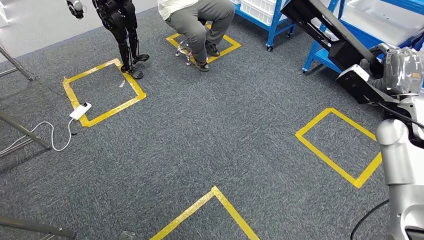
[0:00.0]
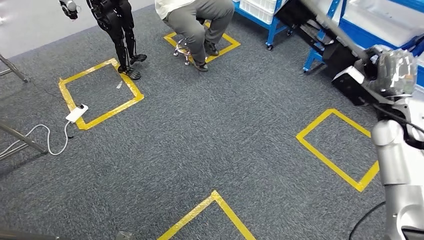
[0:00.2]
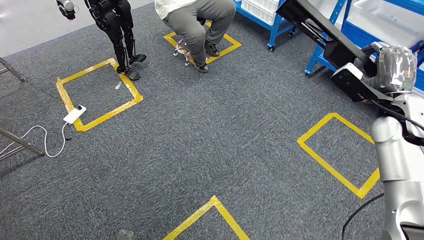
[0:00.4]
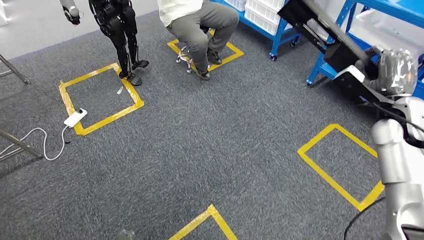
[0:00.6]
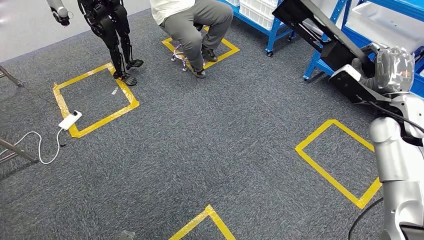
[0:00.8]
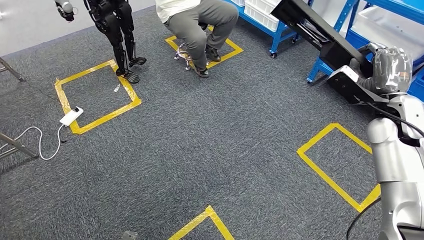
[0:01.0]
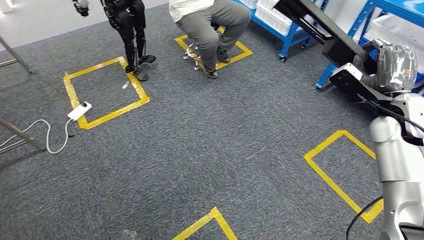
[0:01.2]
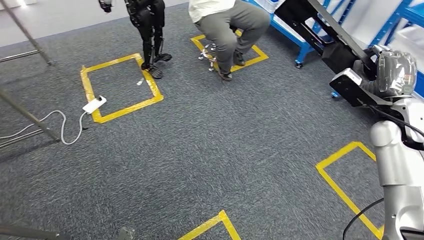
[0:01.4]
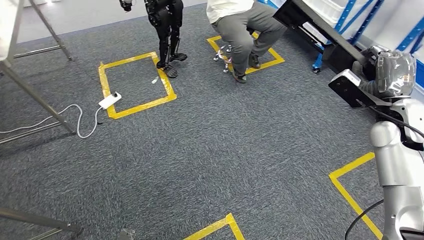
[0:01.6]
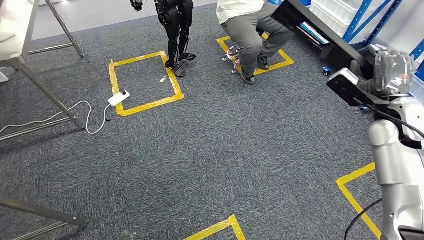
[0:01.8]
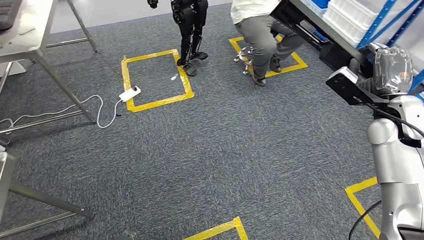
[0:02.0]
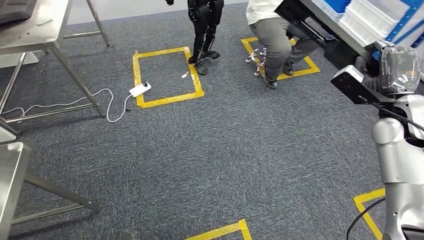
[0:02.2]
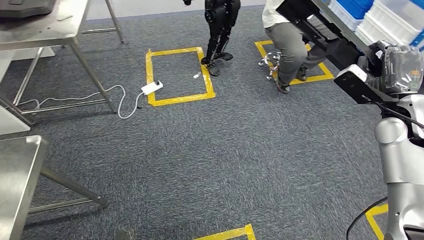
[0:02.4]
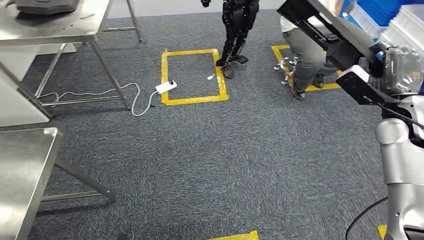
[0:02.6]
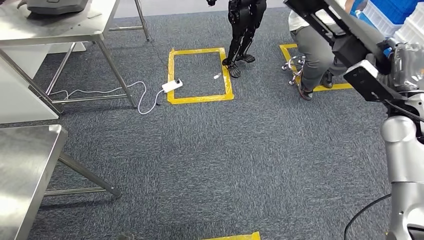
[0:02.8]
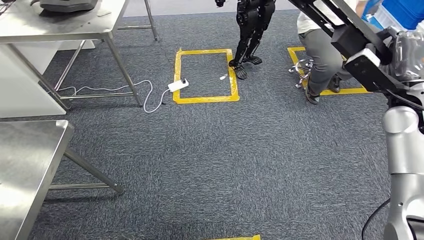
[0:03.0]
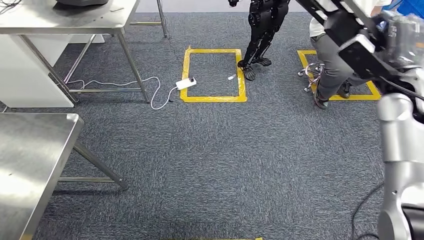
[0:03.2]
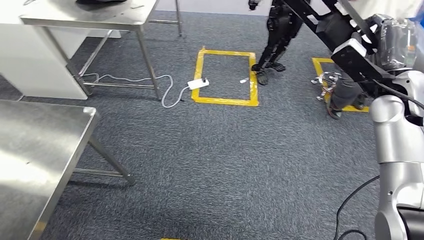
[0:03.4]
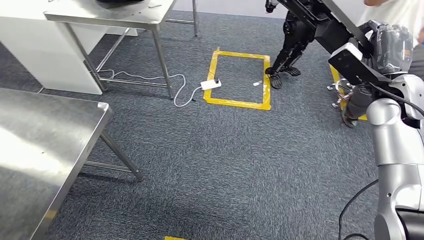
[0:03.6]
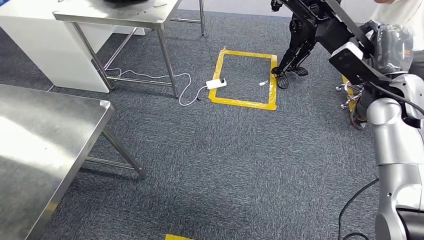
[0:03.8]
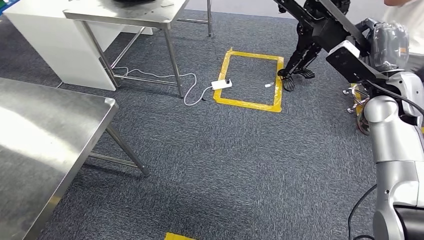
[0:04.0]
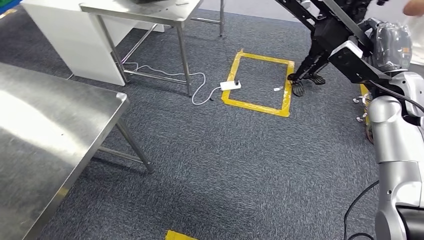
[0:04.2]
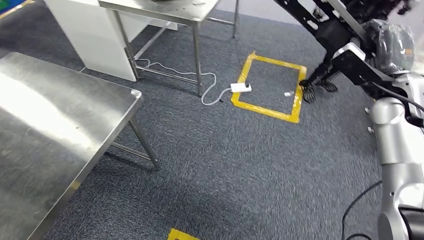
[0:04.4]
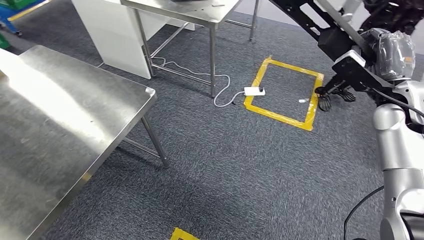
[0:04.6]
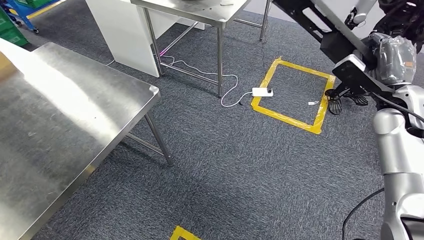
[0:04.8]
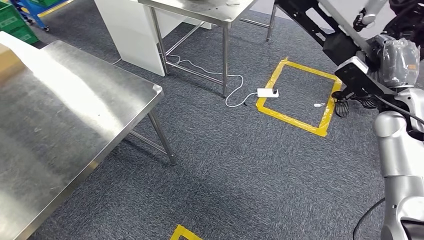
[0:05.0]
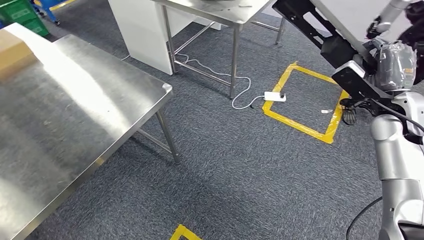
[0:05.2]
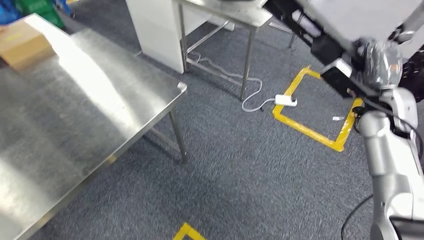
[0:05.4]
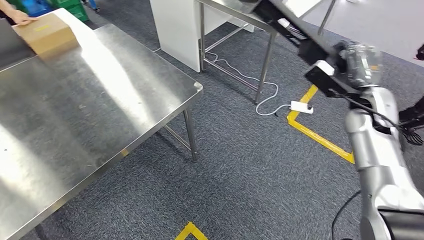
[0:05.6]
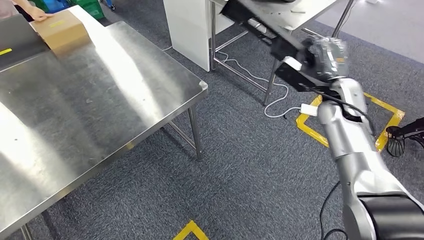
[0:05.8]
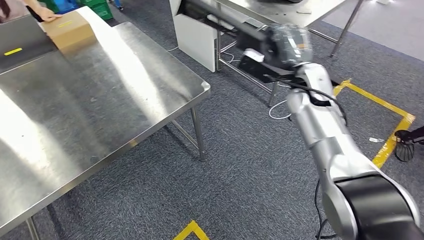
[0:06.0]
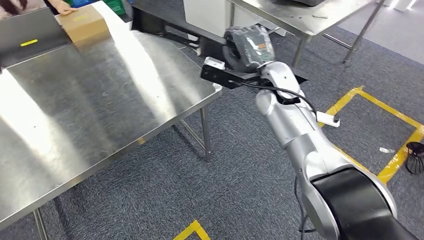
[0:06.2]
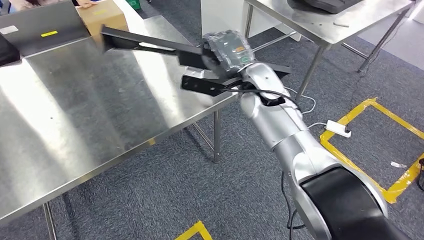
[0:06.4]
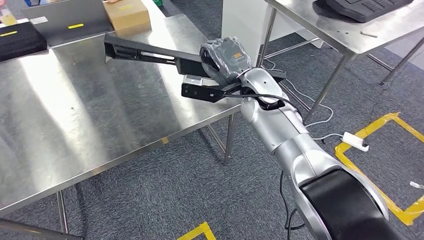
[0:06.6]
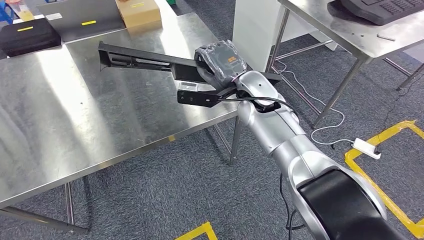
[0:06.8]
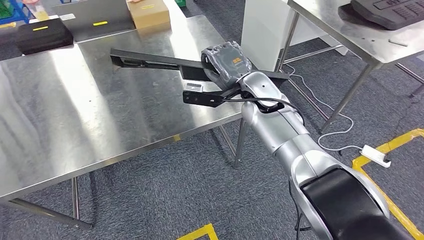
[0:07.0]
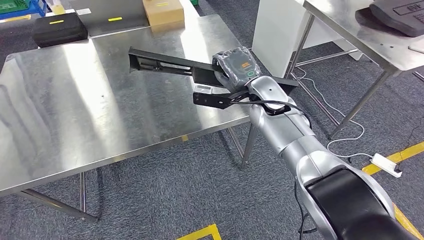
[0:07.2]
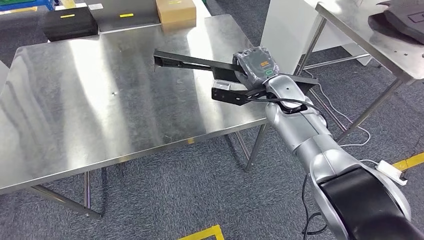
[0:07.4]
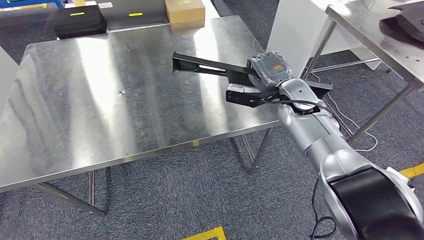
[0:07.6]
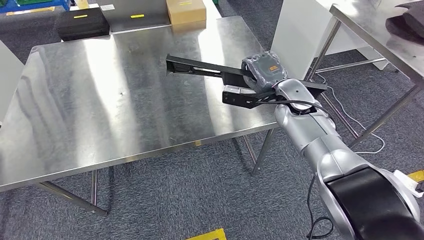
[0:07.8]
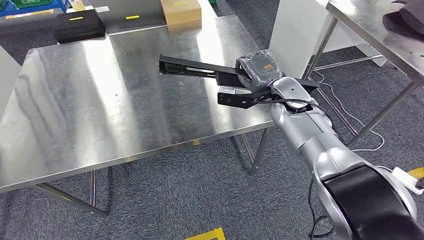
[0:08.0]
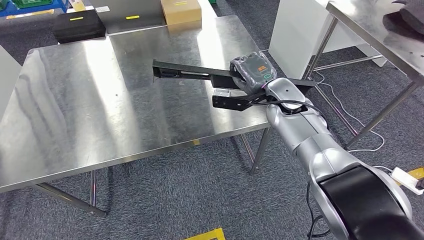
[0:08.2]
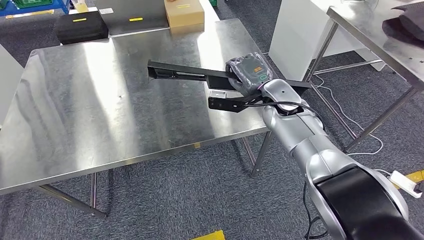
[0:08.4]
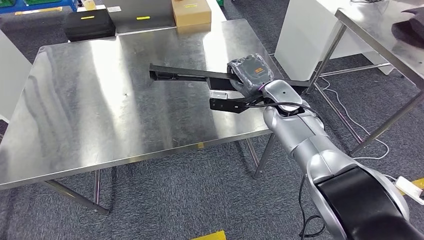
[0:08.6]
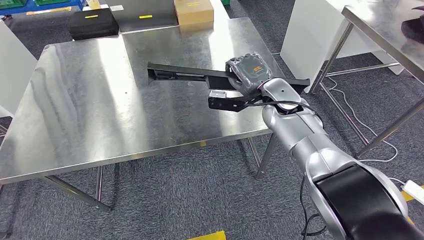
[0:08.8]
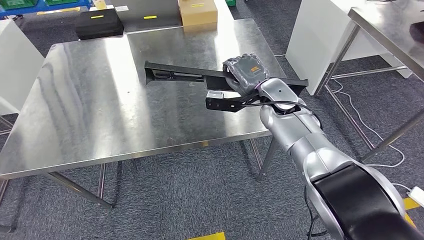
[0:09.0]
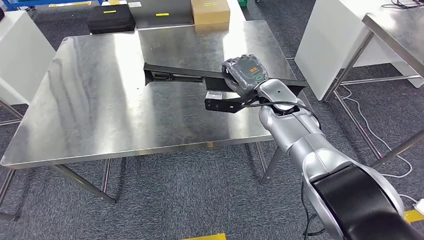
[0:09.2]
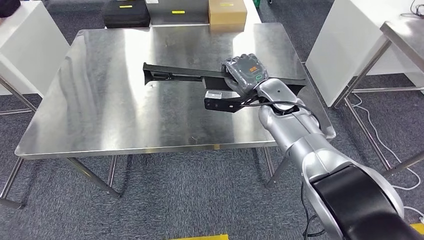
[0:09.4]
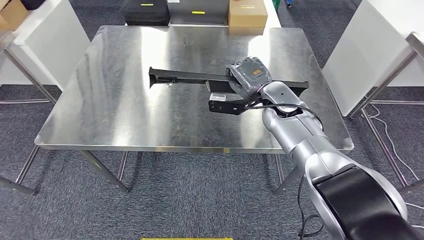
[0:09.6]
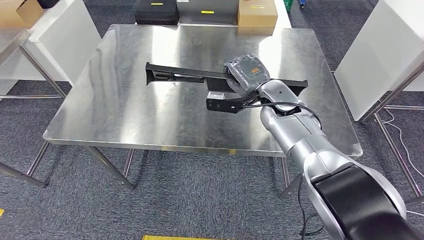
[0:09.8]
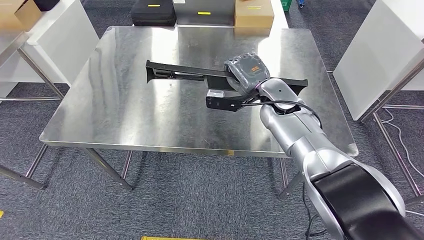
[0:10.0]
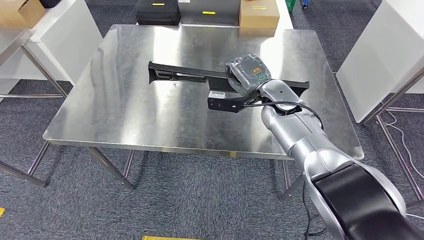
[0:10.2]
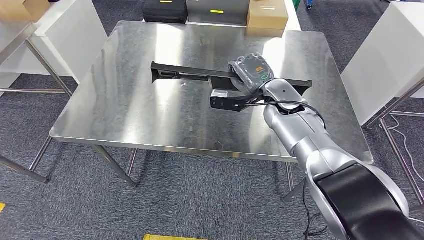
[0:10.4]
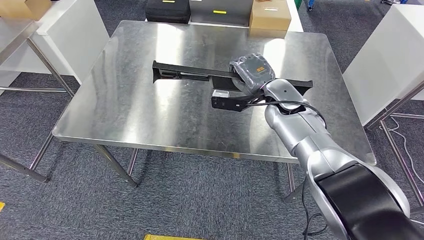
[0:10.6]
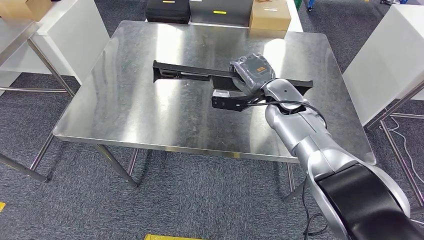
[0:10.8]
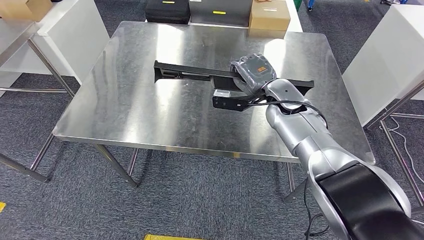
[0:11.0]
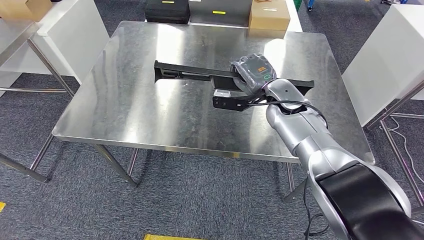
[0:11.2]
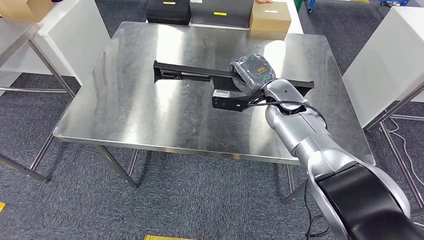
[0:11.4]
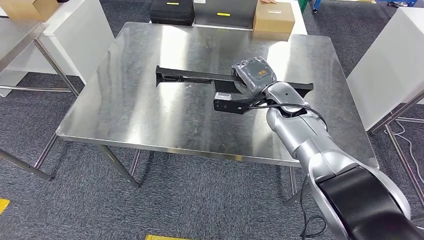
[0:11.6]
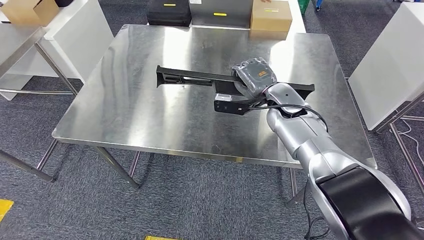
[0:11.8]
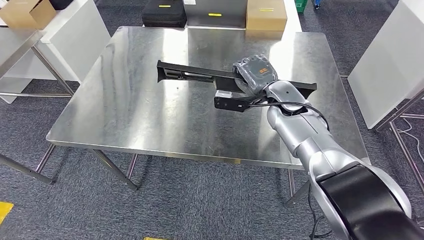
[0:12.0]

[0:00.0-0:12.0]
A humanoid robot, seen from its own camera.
Step, 0:00.0 to 0:05.8: Move the large material to the workbench.

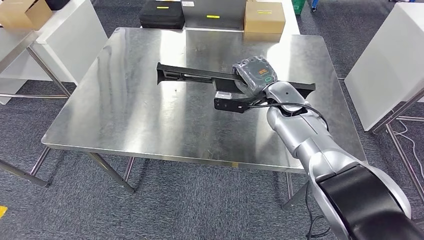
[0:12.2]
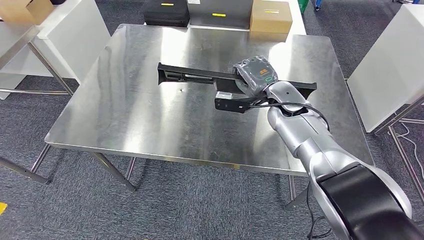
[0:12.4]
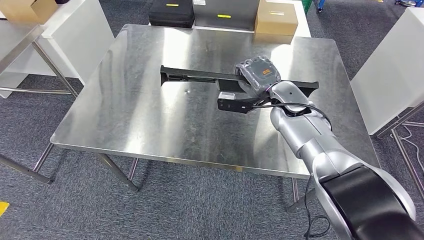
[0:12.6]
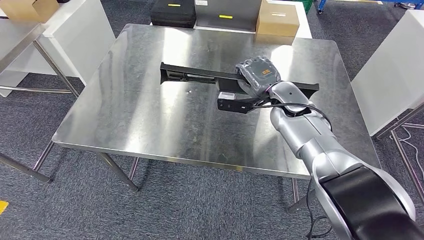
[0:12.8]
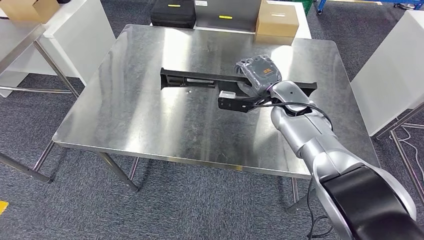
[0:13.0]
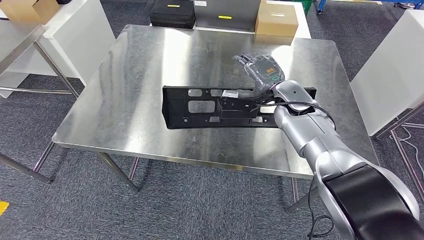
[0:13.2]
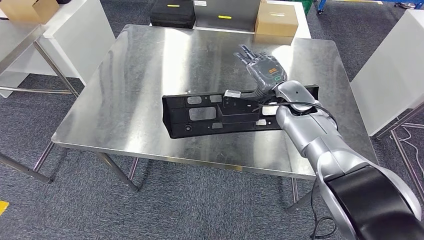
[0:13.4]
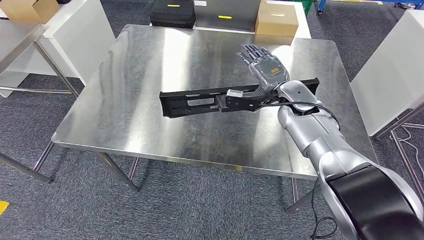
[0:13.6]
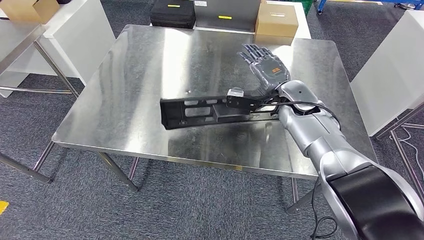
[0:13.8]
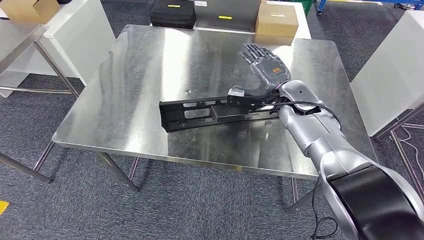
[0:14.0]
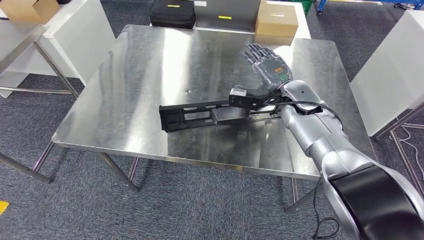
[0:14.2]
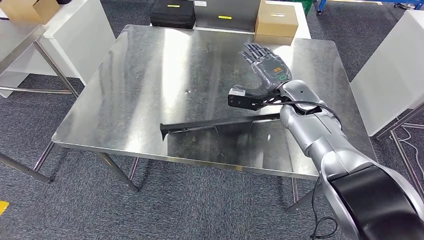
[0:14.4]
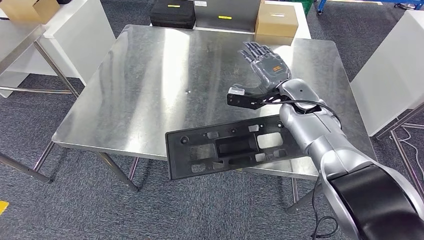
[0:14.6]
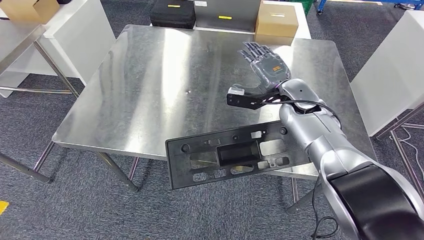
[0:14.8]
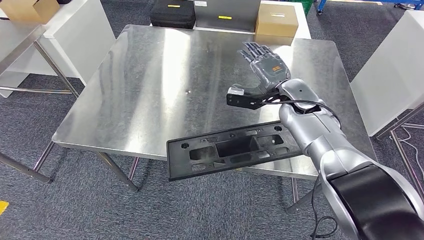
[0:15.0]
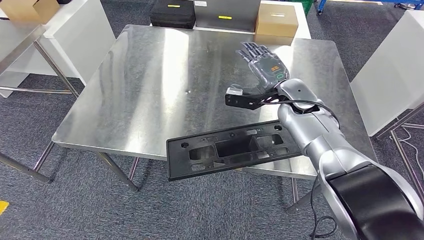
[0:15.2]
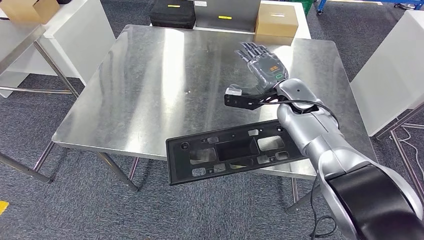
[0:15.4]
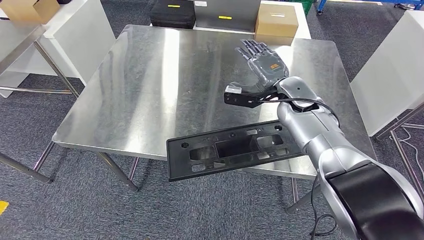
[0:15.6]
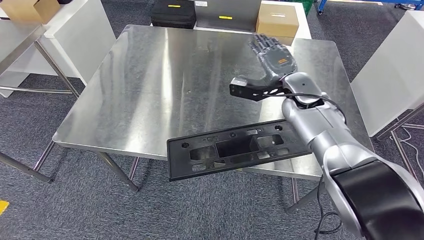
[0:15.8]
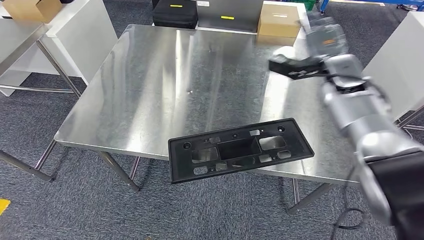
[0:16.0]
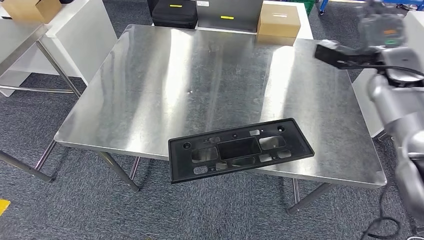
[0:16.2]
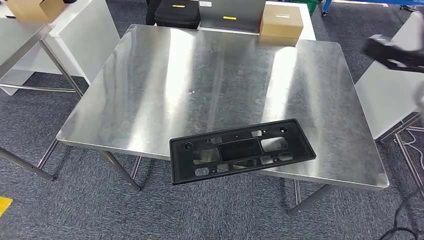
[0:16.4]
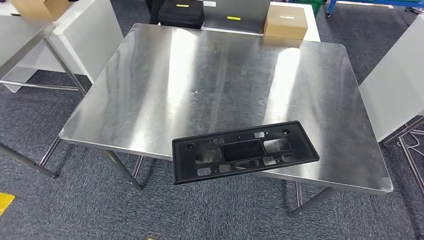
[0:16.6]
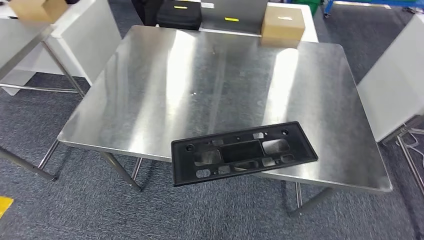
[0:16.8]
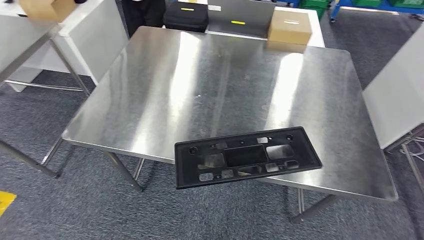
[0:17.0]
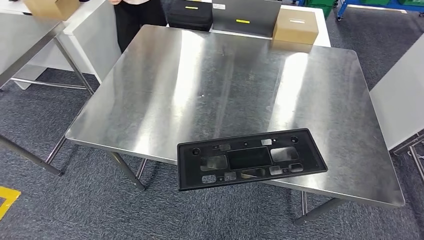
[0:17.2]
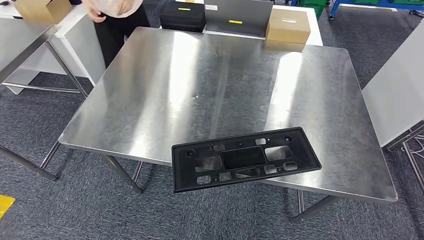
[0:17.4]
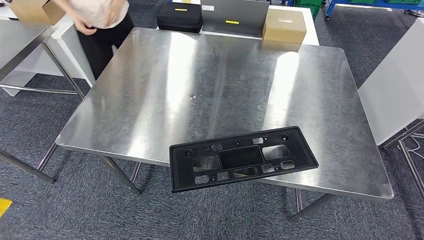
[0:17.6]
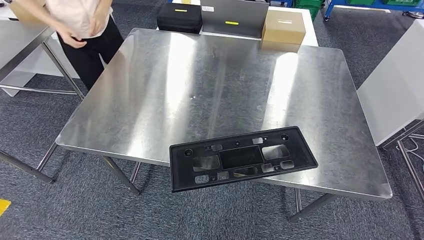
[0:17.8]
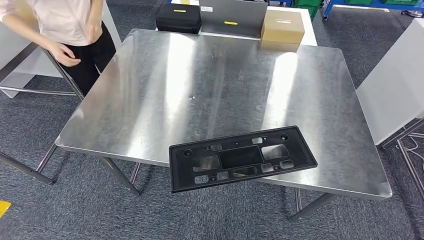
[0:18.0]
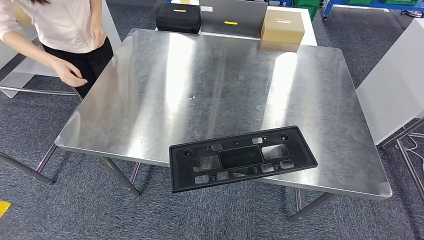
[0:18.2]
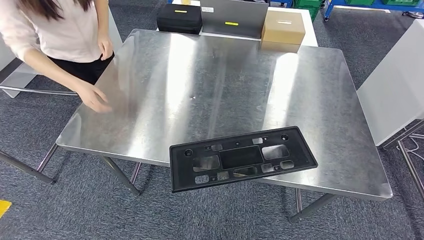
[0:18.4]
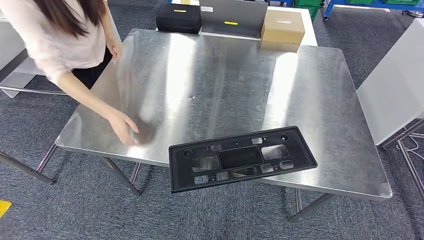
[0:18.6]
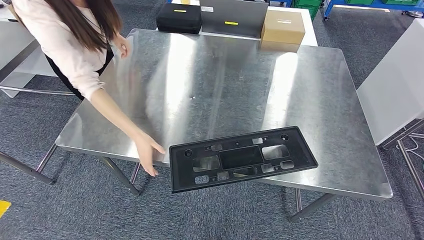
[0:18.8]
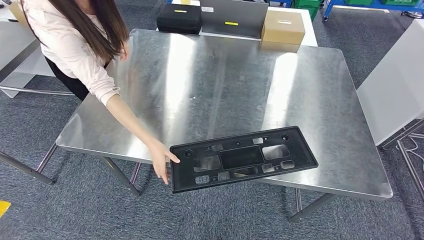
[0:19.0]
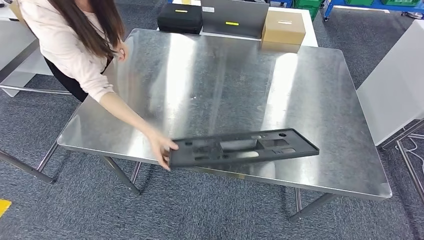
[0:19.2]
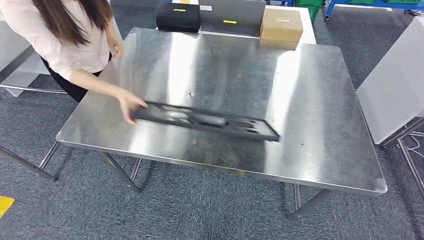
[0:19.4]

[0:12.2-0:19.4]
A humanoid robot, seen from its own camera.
0:13.6 to 0:15.0: The hands move only a little.
